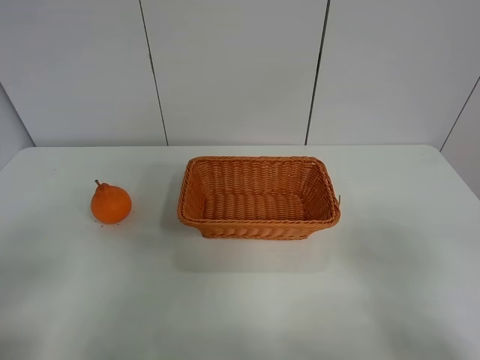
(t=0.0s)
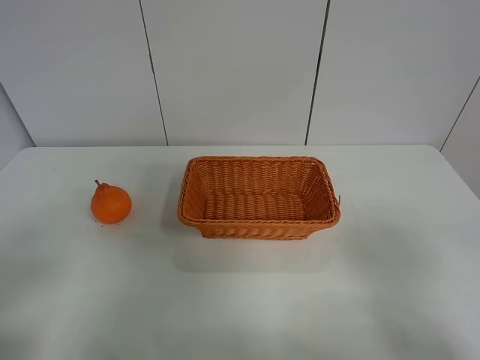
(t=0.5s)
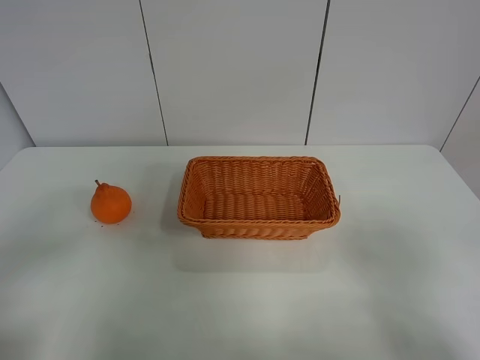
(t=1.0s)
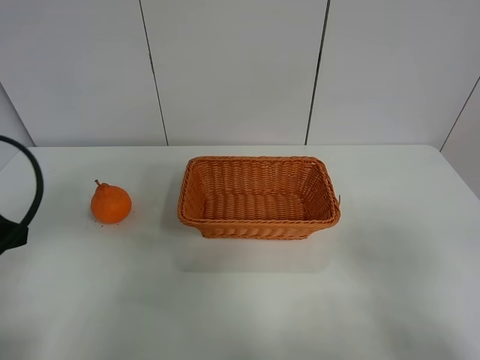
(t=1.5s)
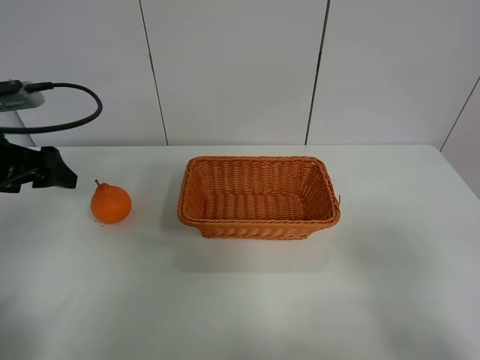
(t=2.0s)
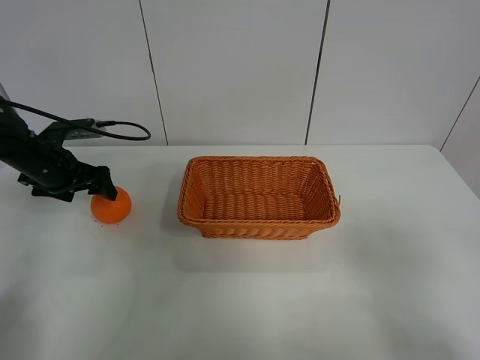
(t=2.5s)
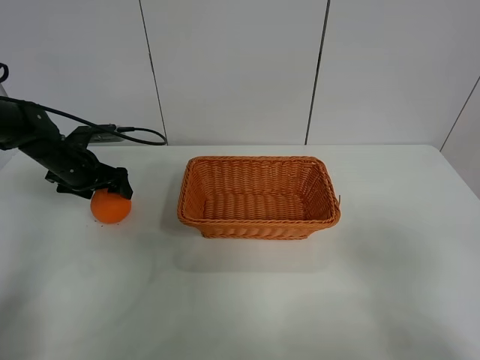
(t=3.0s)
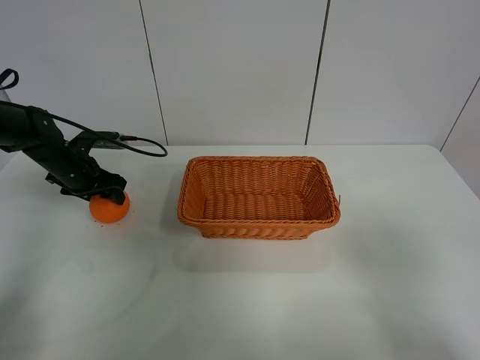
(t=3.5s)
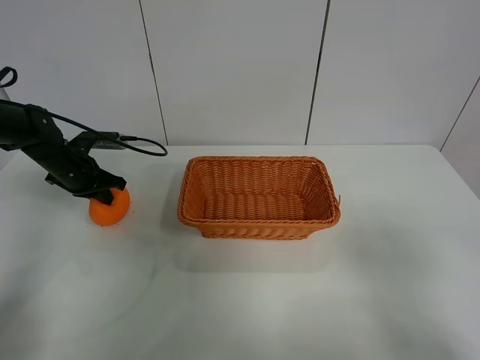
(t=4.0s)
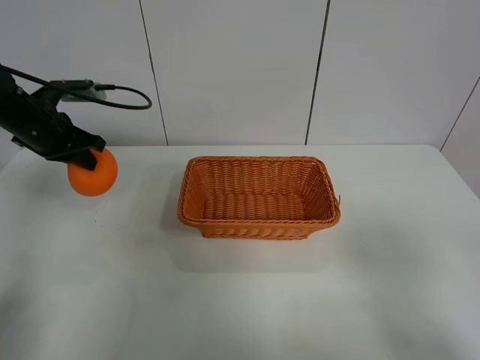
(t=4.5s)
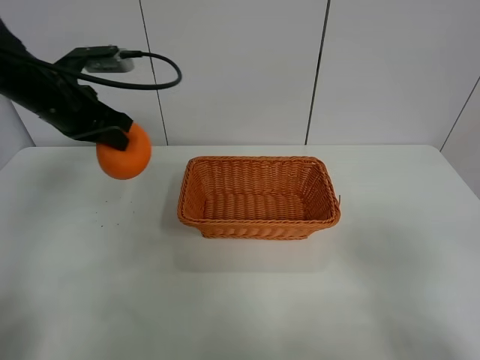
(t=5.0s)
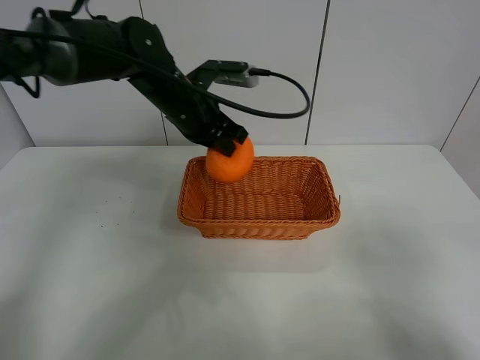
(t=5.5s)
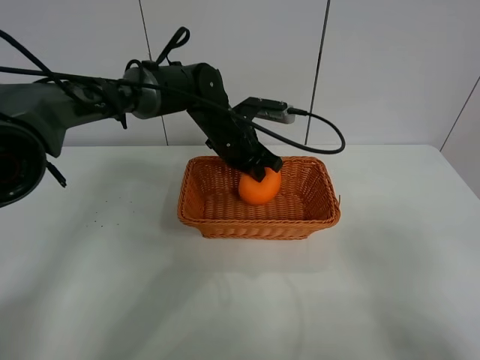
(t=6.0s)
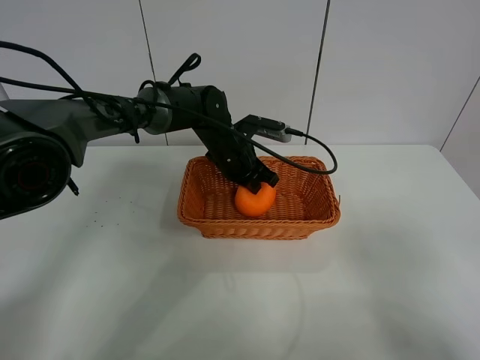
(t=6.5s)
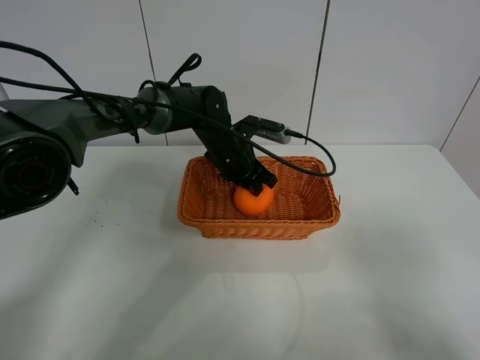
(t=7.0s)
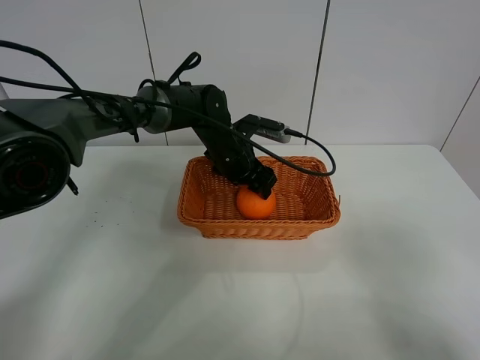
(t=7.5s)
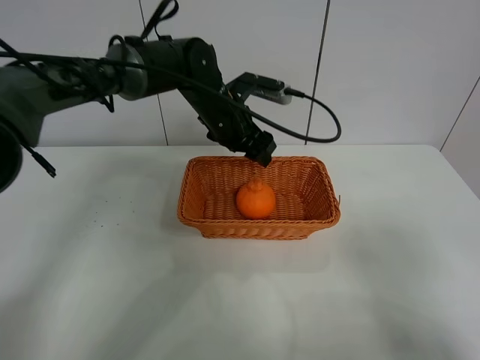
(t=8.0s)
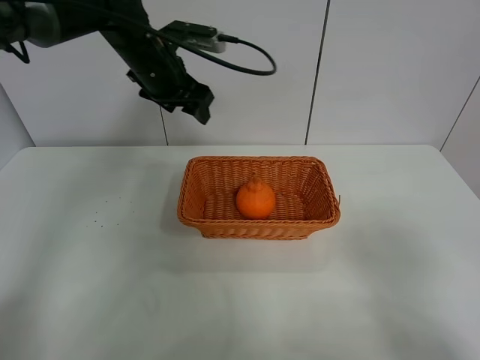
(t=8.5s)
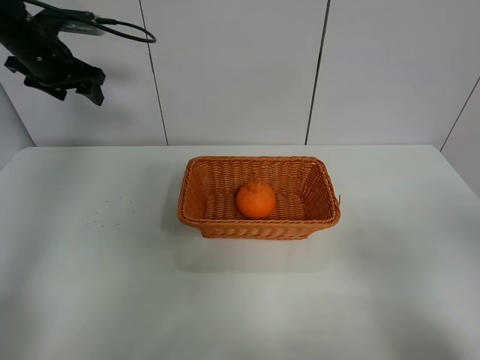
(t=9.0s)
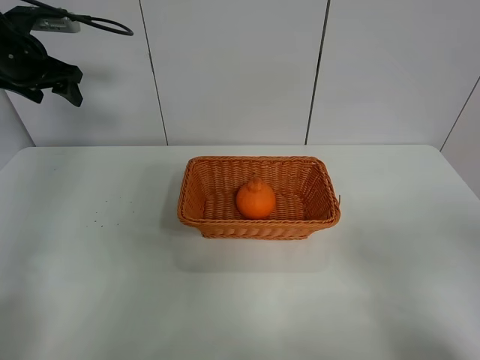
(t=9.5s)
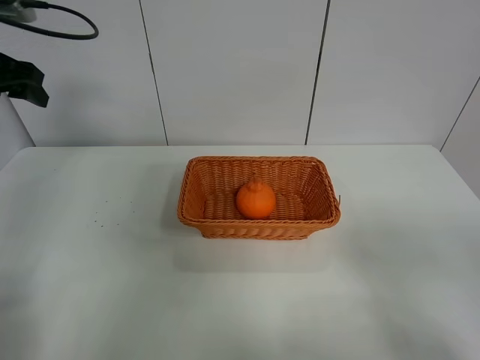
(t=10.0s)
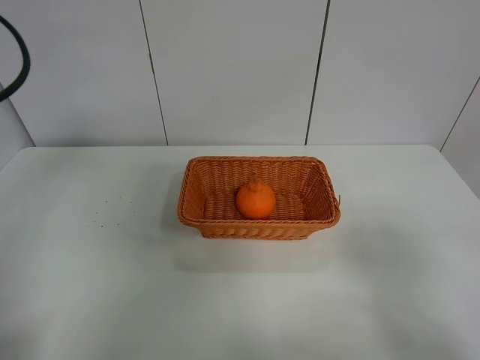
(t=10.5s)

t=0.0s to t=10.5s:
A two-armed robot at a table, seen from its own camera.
Task of the whole recording: left gripper grabs oranges and puts them in the basket.
Step, t=0.0s to t=3.5s: Grasp the orange with left gripper.
Step, t=4.0s to t=8.5s: Place the orange in the basket with left gripper.
t=0.0s to t=2.0s: The left gripper moves forward, roughly 25 cm.
t=2.0s to t=4.0s: The left gripper moves forward and downward, approximately 20 cm, and closes its fingers.
t=4.0s to t=6.5s: The left gripper shifts roughly 30 cm to the right.
t=6.5s to t=8.5s: The left gripper moves upward and to the left, about 20 cm, and opens its fingers.
t=8.5s to t=10.5s: The left gripper moves backward and to the left, about 30 cm.
